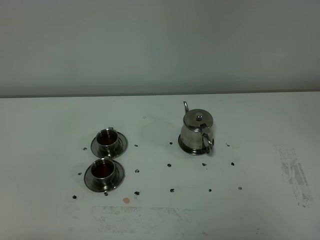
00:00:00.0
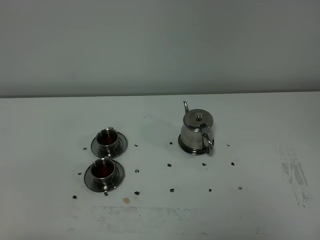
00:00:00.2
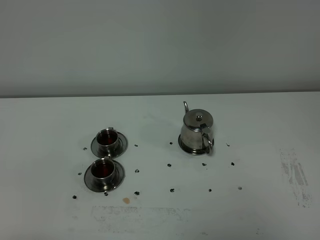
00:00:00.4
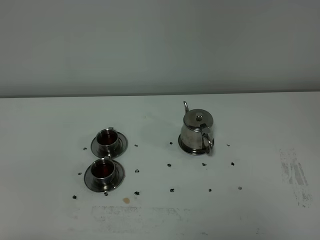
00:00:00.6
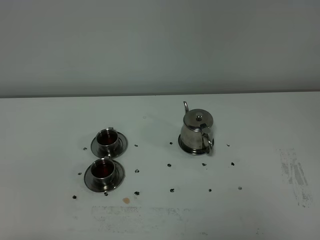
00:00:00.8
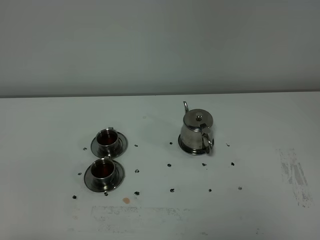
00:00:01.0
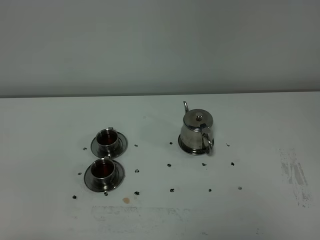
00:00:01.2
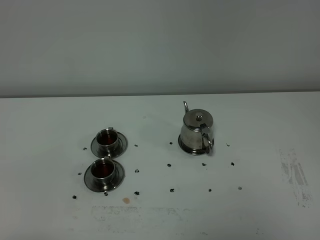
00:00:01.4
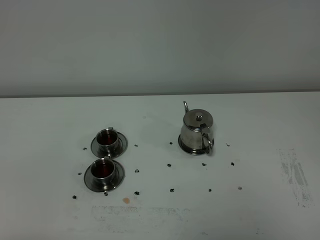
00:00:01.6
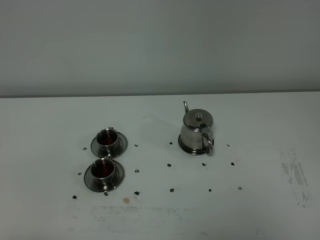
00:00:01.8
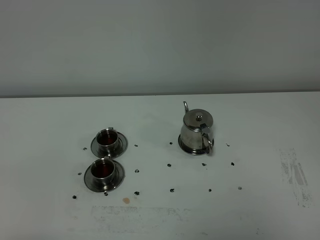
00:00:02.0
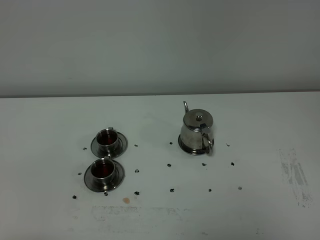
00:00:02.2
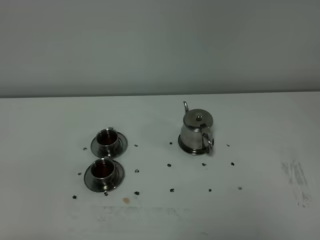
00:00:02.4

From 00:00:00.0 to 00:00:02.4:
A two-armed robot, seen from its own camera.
Task of the whole recording: grasp the stainless steel teapot and pour the tea into the two stainless steel teacups one by one, put the stainless steel teapot back in its original place.
From 00:00:01.2 to 00:00:02.4: Both grippers stay about where they are.
